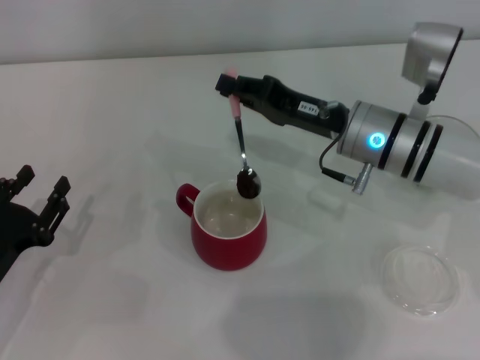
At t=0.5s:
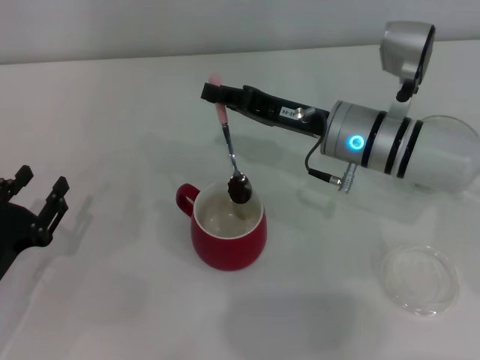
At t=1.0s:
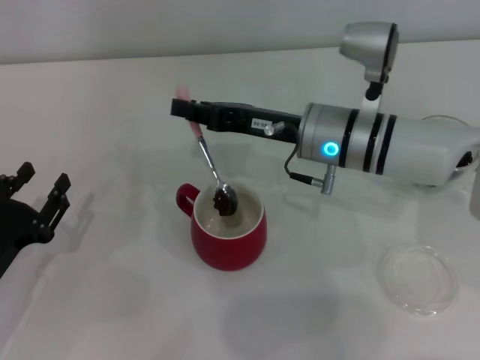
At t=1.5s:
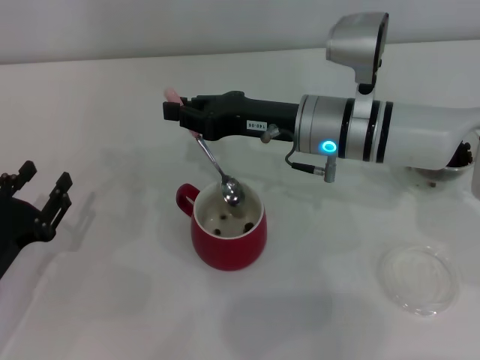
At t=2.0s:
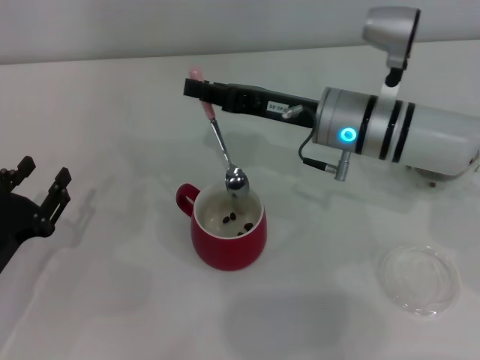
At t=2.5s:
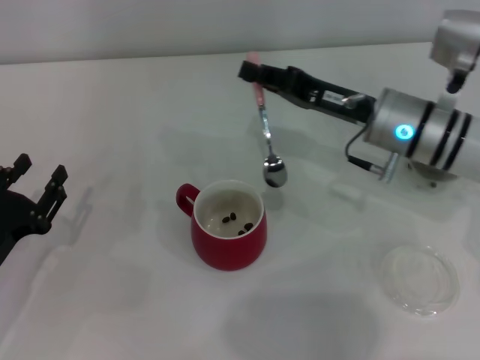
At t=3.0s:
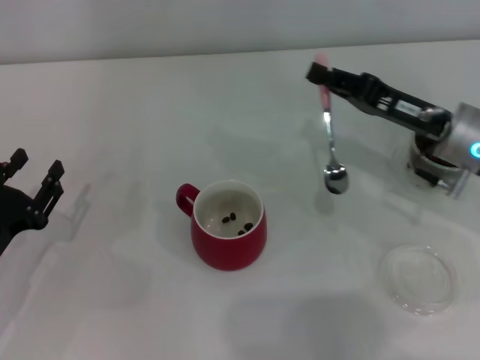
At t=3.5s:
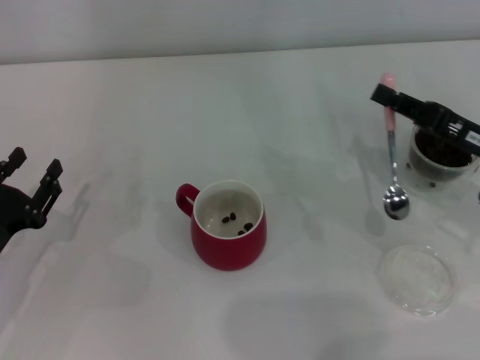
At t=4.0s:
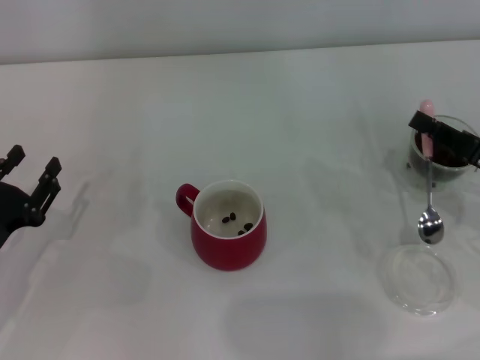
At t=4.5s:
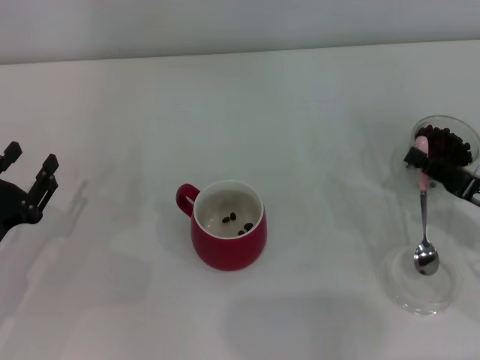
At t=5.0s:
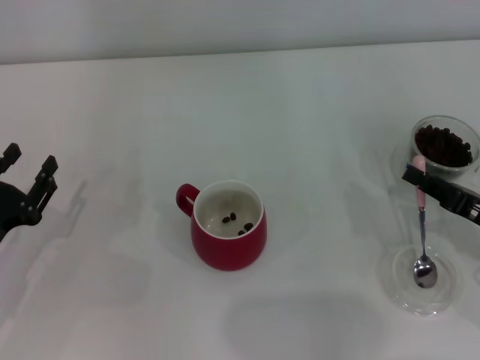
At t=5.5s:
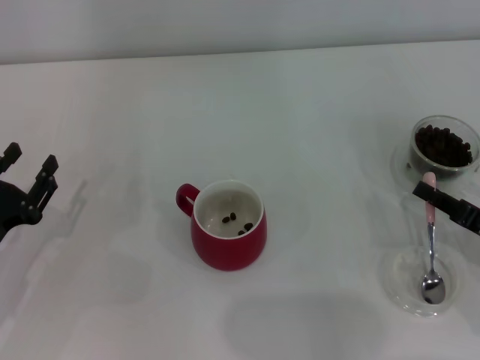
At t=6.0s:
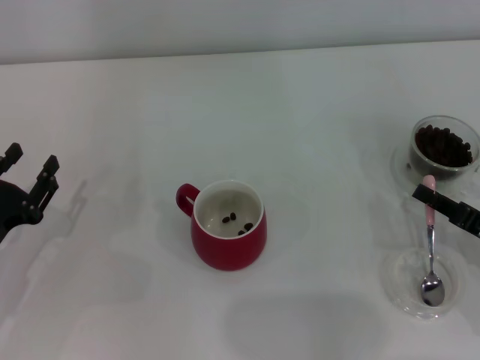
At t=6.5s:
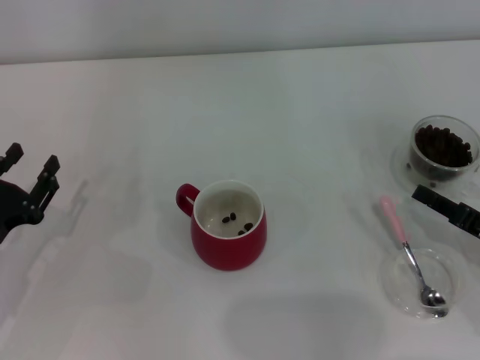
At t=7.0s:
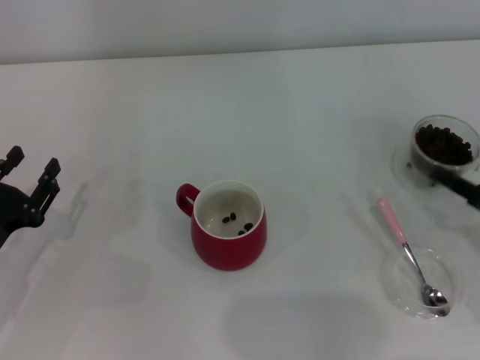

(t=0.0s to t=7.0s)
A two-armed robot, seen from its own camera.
Task of the whole recording: Use a pink spoon to take out the coffee beans from the glass and pour them into the red cup.
Step, t=0.0s - t=2.0s: Scoop a spoonful of beans into the cup with the right gripper.
Step, t=2.5s - t=6.0s: Place the spoon back in its original place with the right gripper.
t=2.0s - t=3.5s: The right gripper goes approximately 20 cm to the right and backward.
t=3.5s - t=5.0s: The right gripper shifts approximately 10 cm backward and downward.
t=5.0s - t=7.0s: There are only small adjustments of the grippers.
